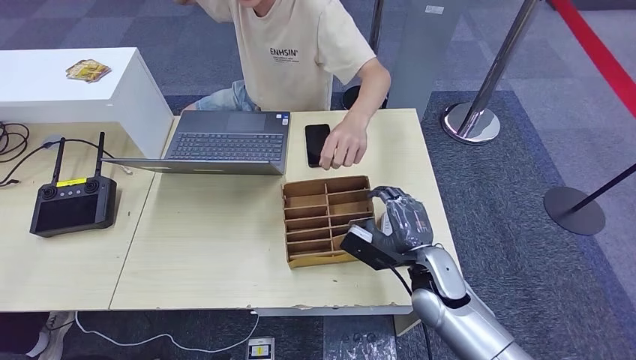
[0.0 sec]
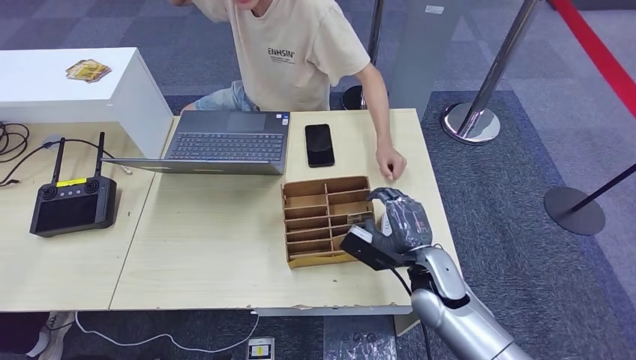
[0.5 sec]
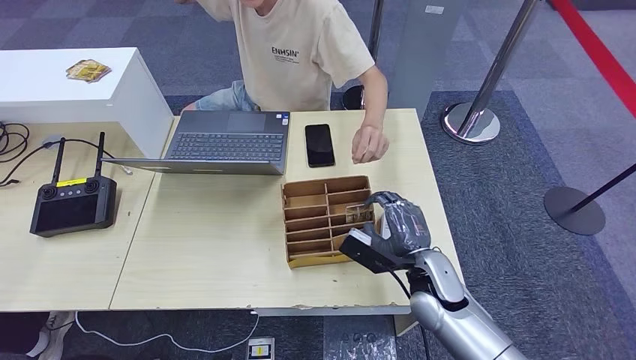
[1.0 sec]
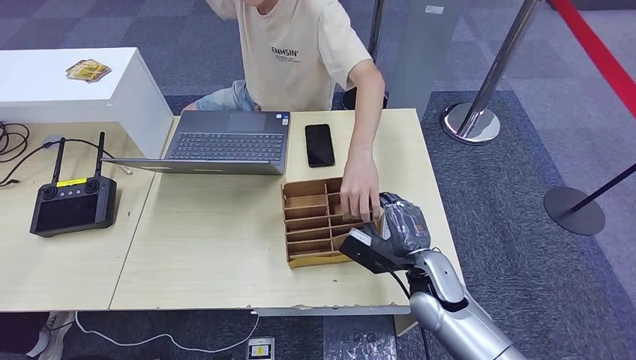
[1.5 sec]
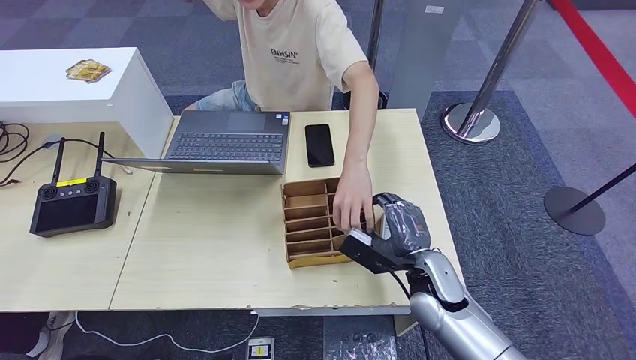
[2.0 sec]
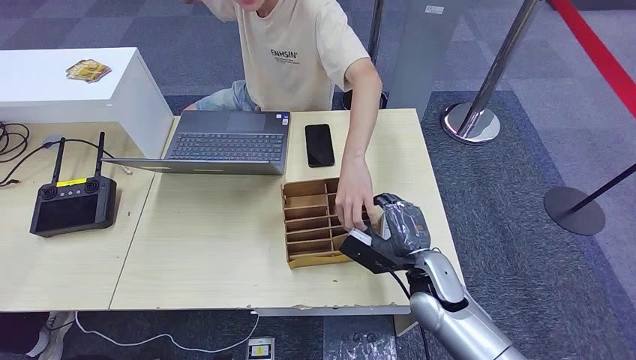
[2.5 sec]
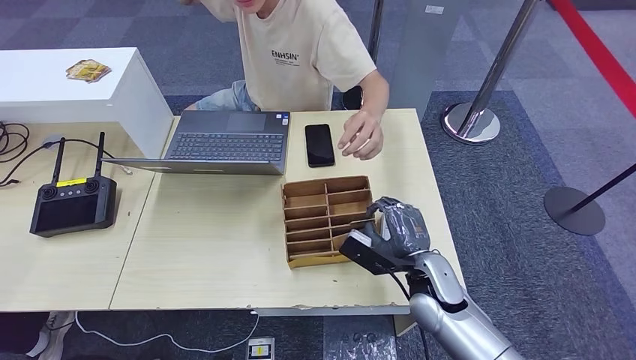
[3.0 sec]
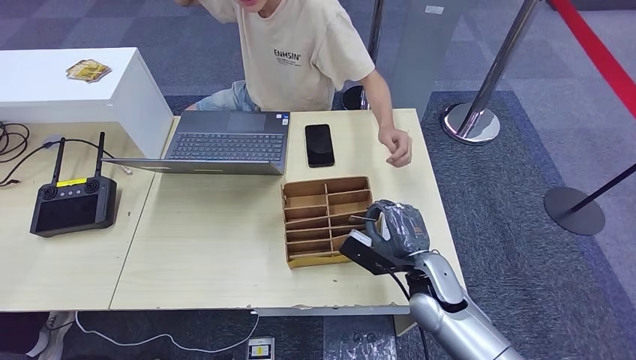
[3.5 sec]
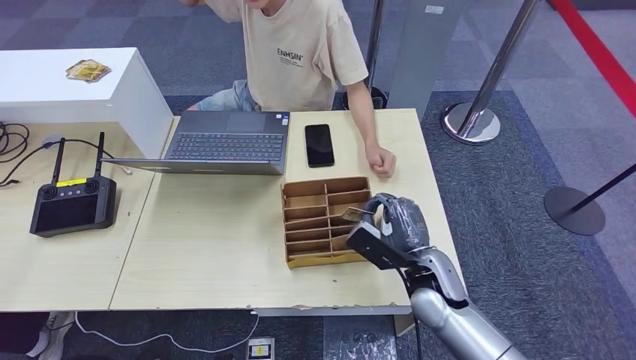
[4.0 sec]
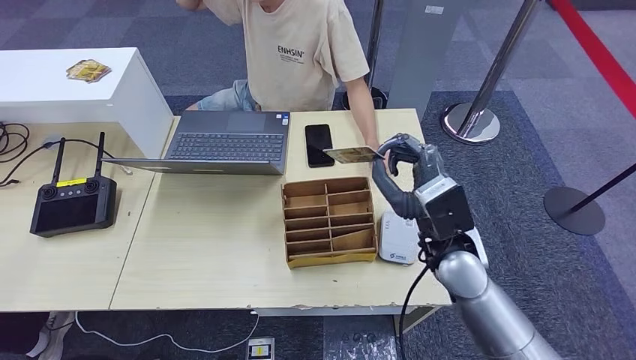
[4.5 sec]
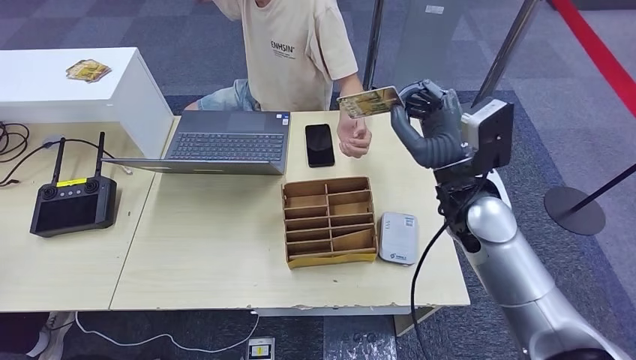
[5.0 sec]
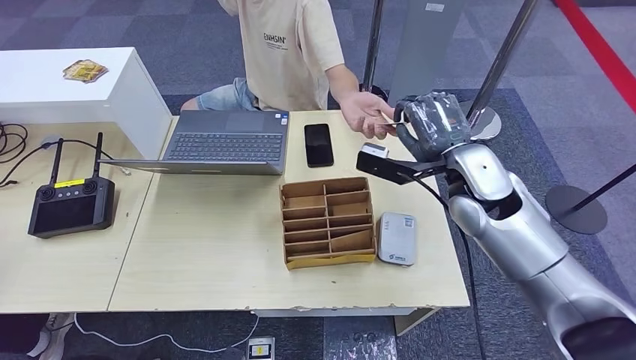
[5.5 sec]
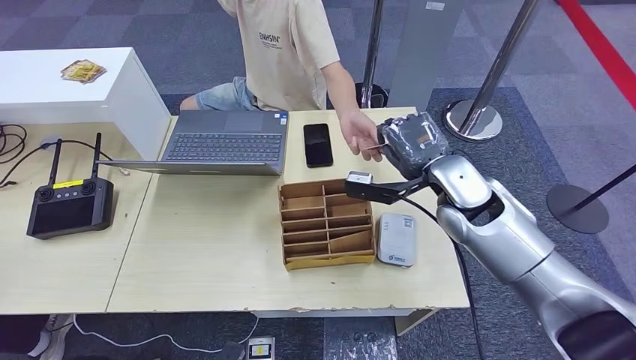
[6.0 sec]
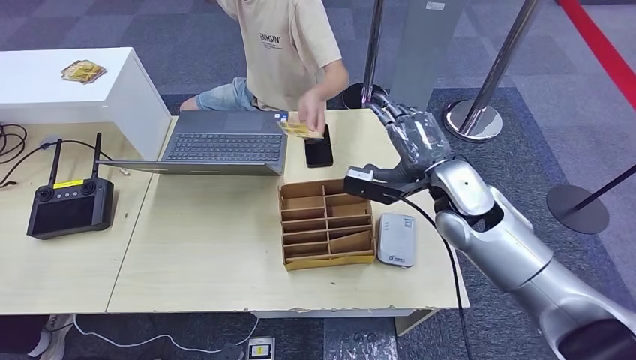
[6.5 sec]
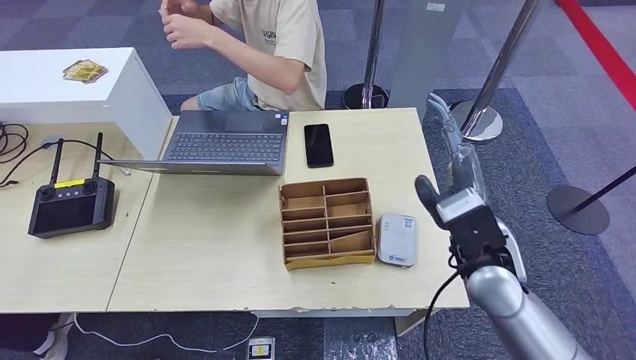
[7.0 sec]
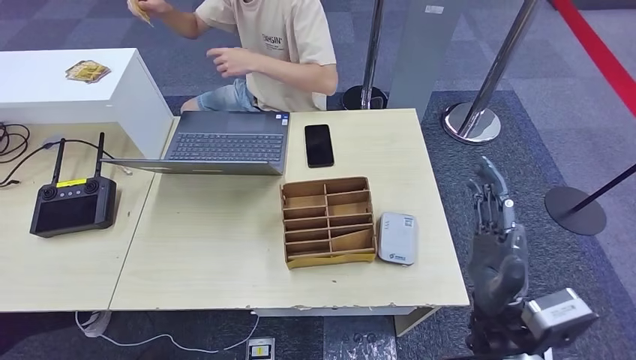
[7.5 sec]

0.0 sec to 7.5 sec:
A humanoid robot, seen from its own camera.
Step, 0.0 sec to 4.5 sec: Pick up the room key from the key card box.
Step, 5.0 sec to 7.5 sec: Hand the room key to the person.
0.0 sec to 2.0 sec: Neither hand changes place.
2.0 sec to 4.0 sec: The hands stay close to where they were, moving slightly.
5.5 sec to 7.5 sec: The right hand heads backward and downward, covering approximately 20 cm.
